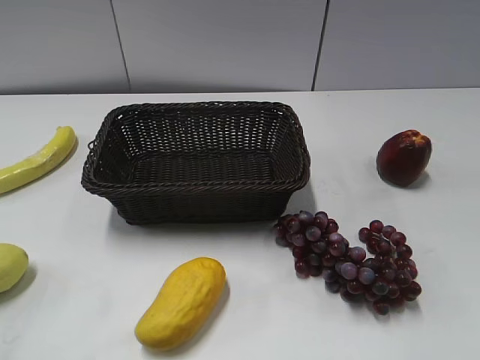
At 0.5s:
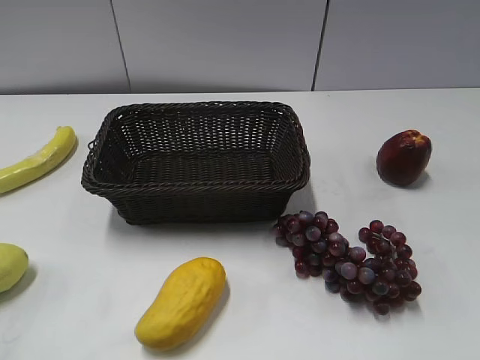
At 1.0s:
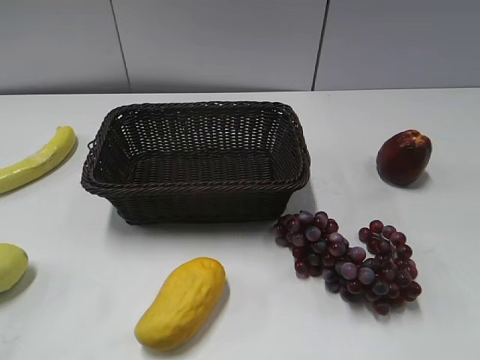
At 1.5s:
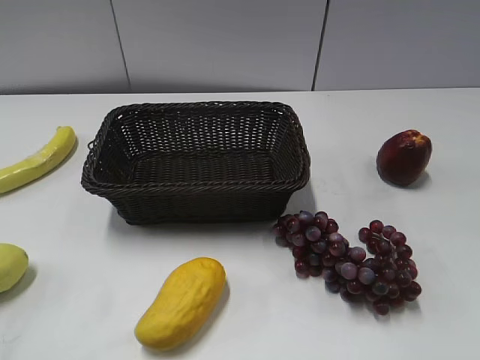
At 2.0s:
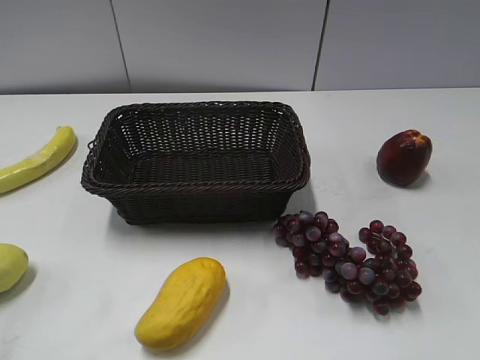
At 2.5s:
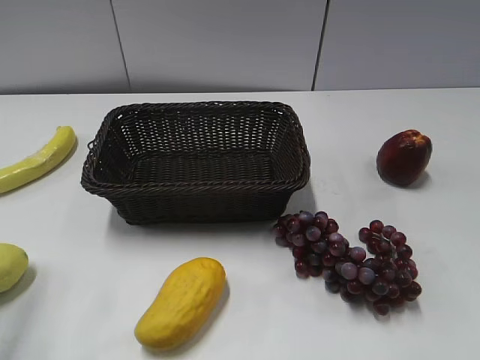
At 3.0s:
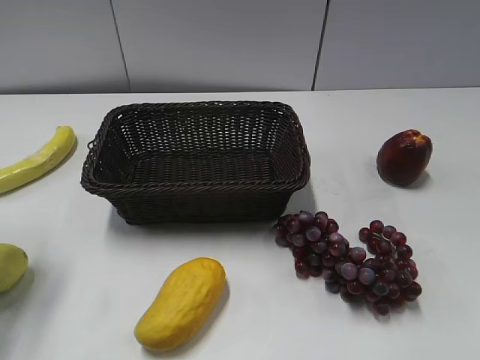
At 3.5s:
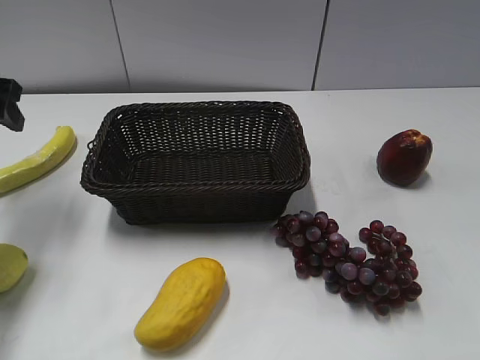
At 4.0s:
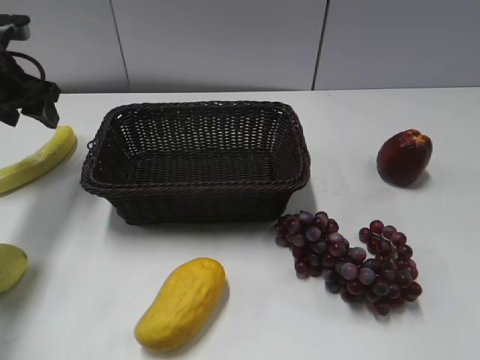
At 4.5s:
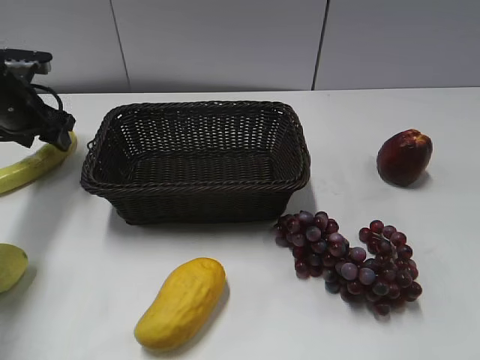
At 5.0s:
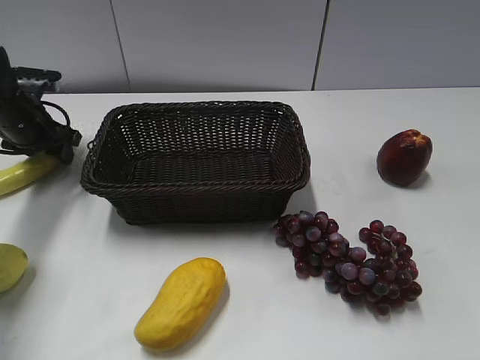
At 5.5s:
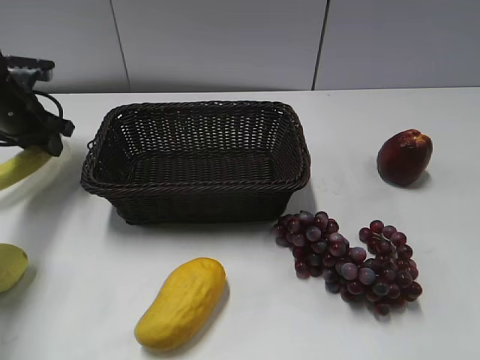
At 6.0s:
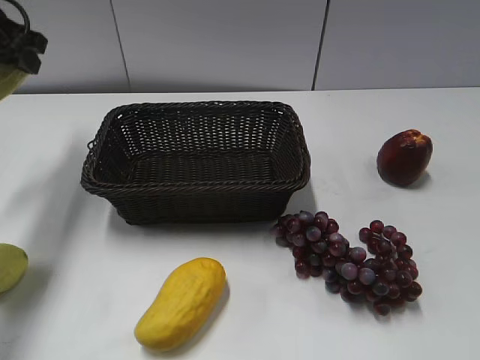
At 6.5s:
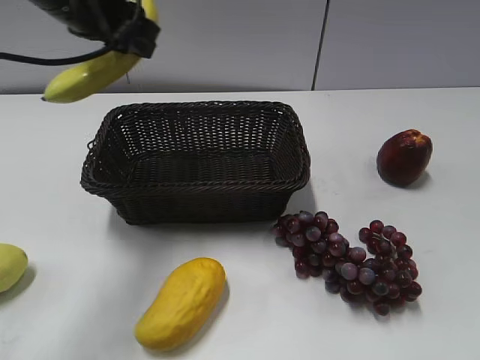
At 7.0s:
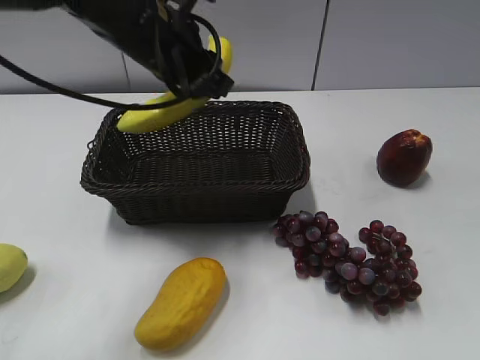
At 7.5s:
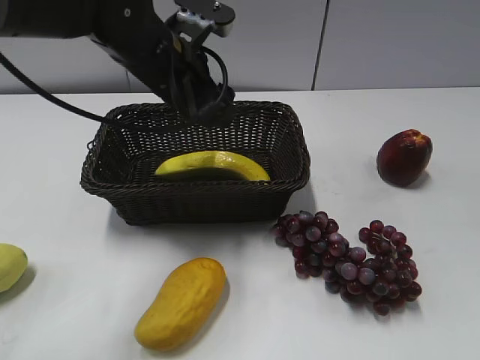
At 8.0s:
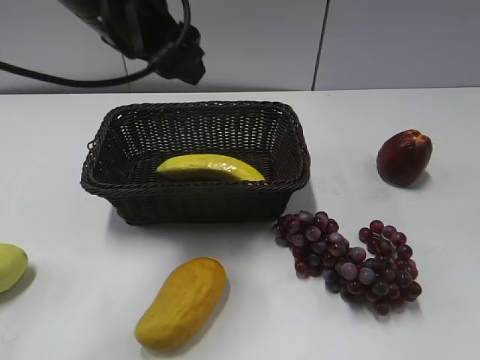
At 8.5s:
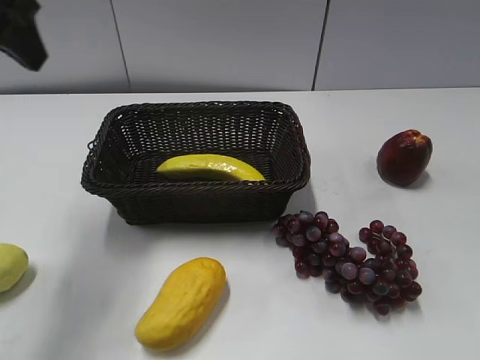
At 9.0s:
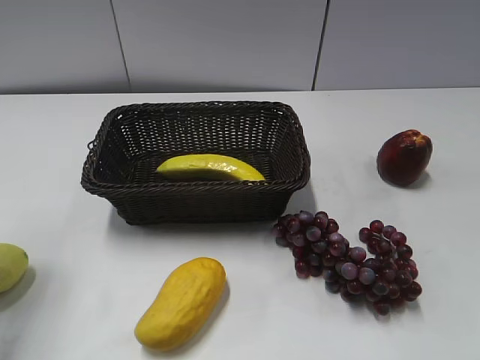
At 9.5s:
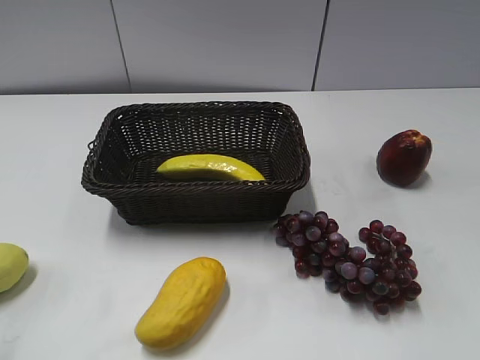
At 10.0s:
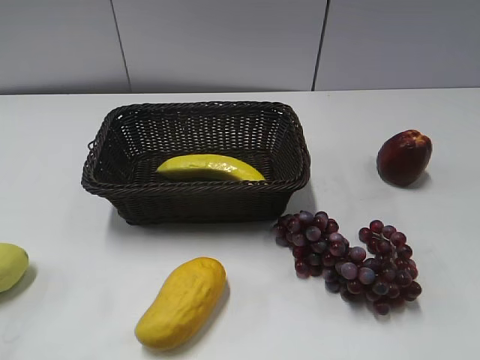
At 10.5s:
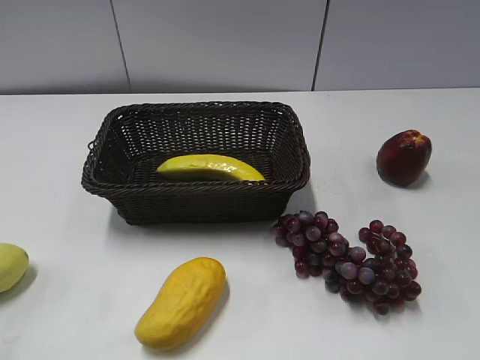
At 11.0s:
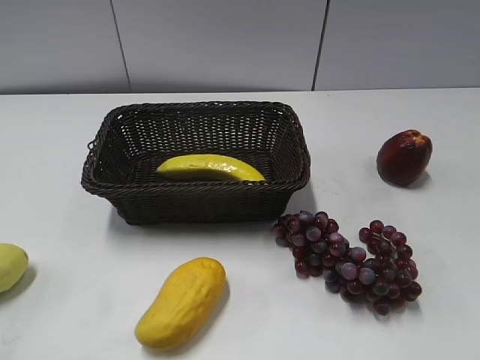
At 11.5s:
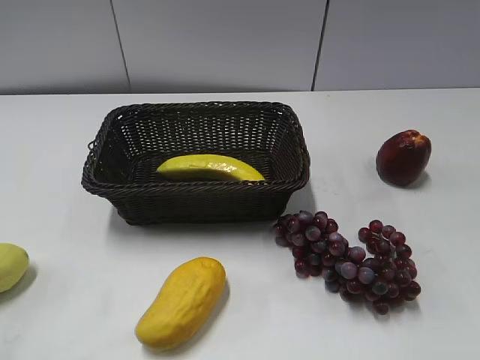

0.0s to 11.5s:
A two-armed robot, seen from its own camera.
Step, 3.5s to 5.0s: Grasp the banana with left gripper.
Step, 5.5s to 7.5s: Place the banana in the basket with left gripper.
2.0s to 4.0s: The left gripper travels forward by about 35 cm, and opens up.
4.0s to 6.0s: The left gripper moves upward, about 10 cm, and closes.
6.0s to 7.5s: The left gripper shifts about 20 cm to the right, and opens its fingers.
7.5s to 9.5s: The left gripper goes approximately 35 cm backward and to the left.
